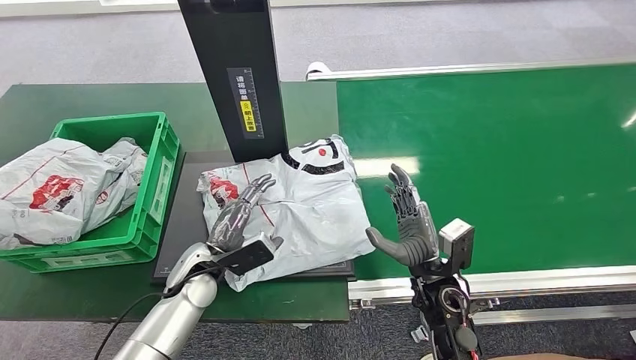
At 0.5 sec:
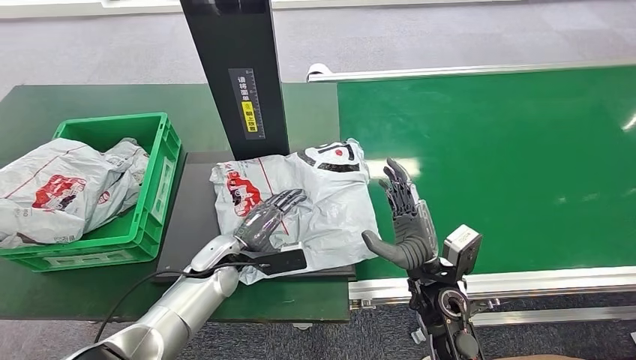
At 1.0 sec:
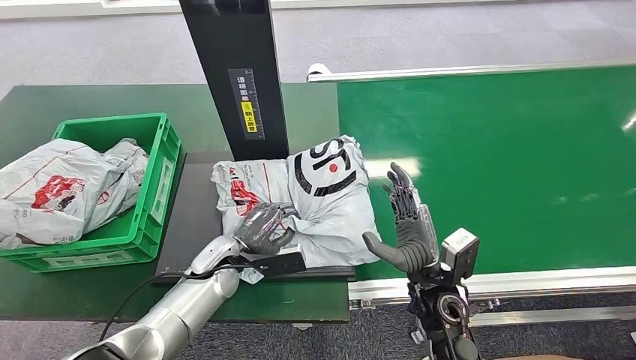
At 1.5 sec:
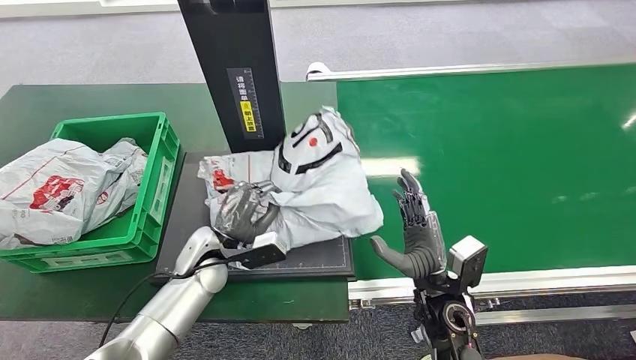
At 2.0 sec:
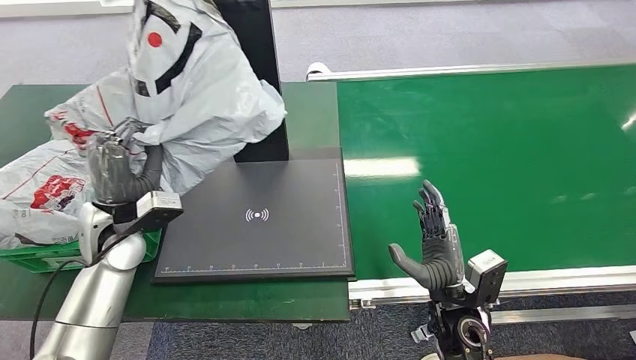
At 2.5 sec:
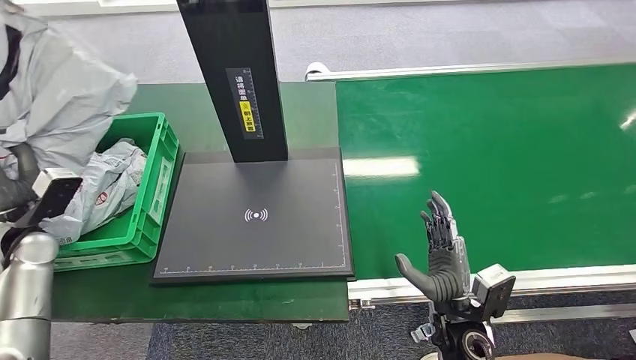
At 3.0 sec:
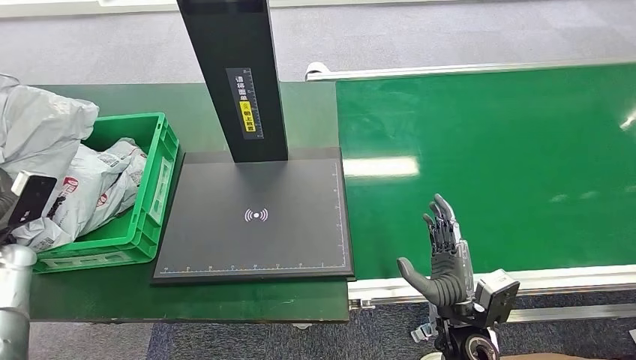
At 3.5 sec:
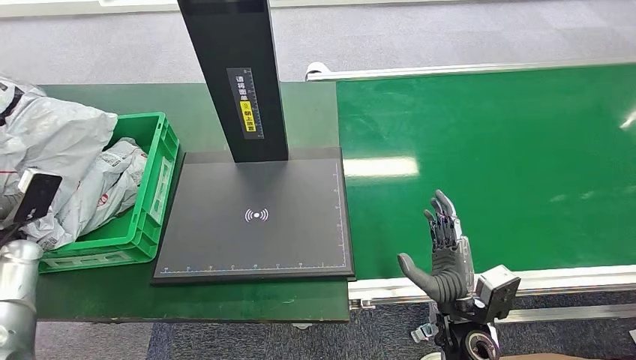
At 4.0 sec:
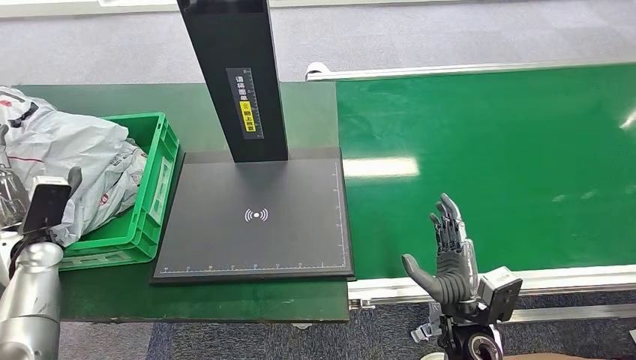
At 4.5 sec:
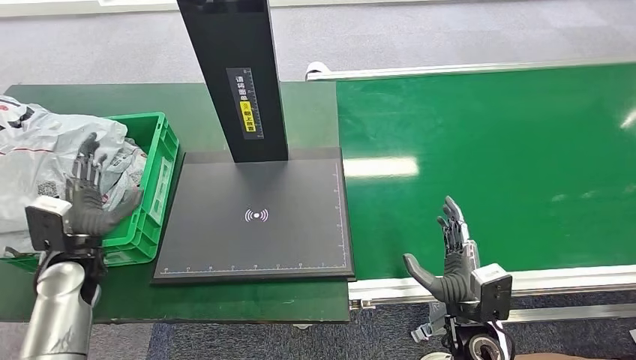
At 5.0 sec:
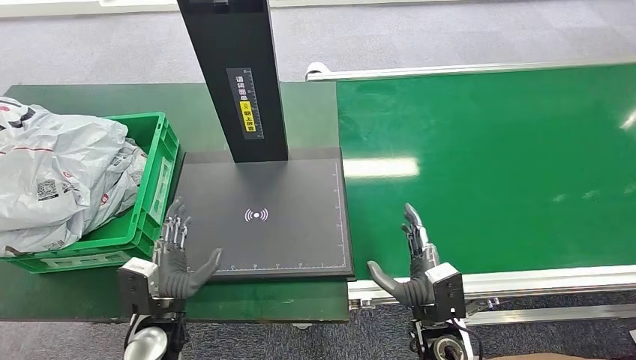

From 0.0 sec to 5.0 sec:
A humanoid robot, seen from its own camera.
Step, from 0.0 sec to 2.0 sec: Pick up the package from the inbound machine.
Step, from 2.5 sec to 5.0 sec: Place the package into the parcel locker.
From 2.5 sec to 5.0 sec: The left hand is displaced to the right, downward and backward by some 30 cm.

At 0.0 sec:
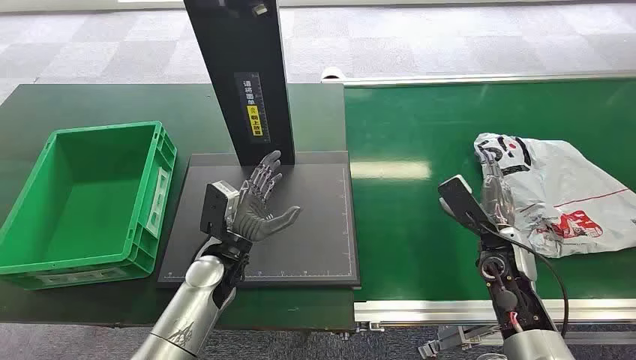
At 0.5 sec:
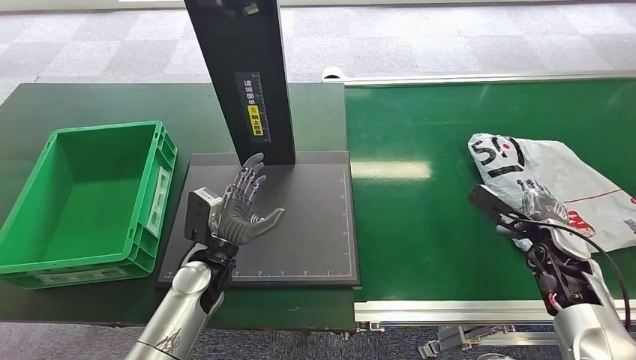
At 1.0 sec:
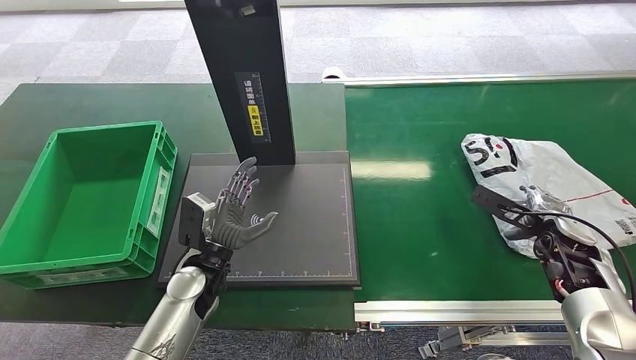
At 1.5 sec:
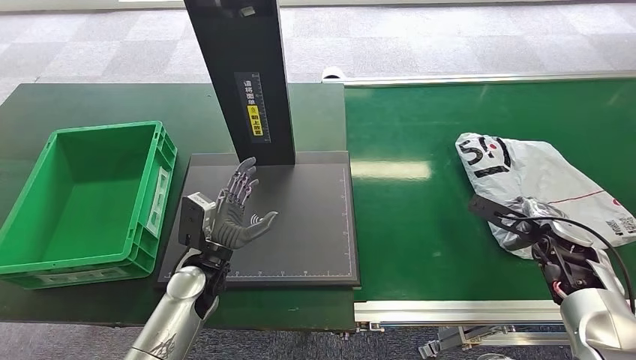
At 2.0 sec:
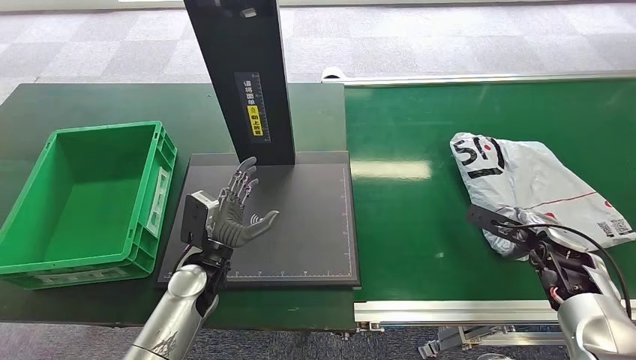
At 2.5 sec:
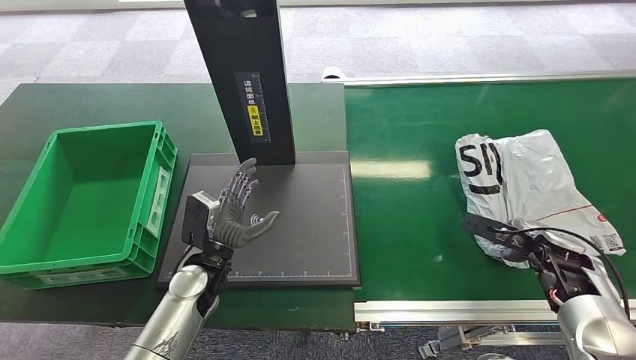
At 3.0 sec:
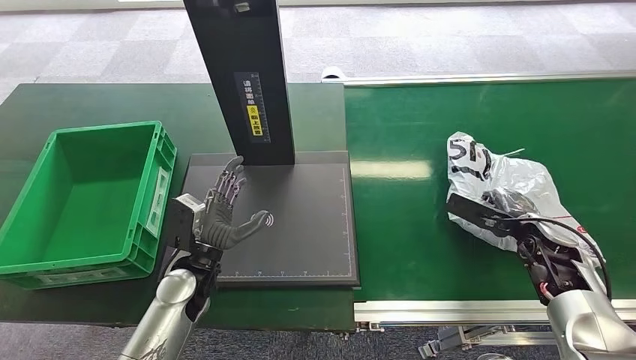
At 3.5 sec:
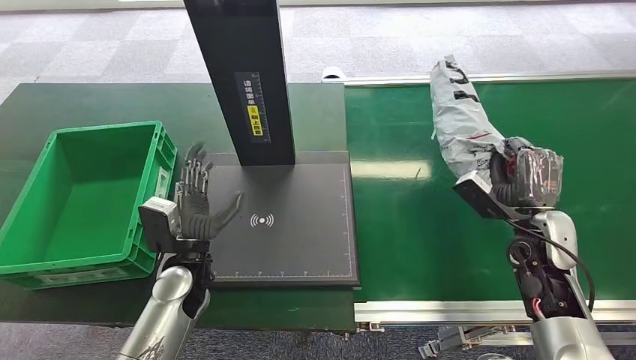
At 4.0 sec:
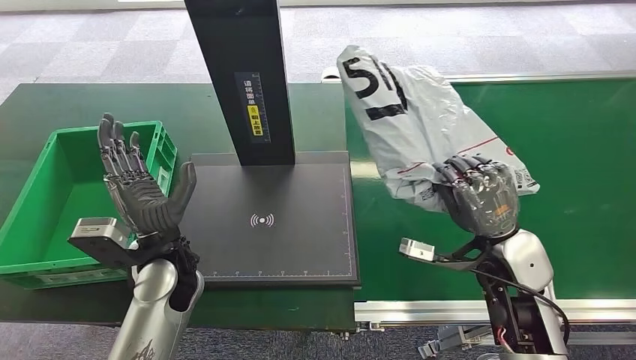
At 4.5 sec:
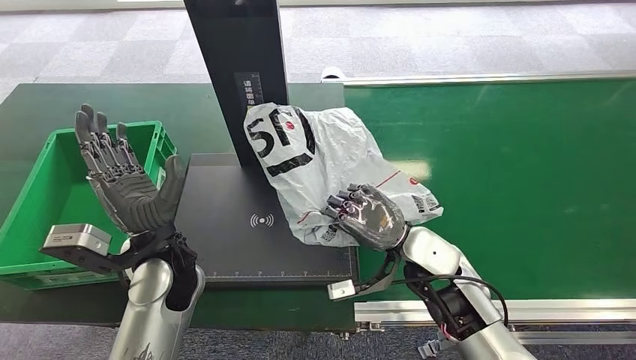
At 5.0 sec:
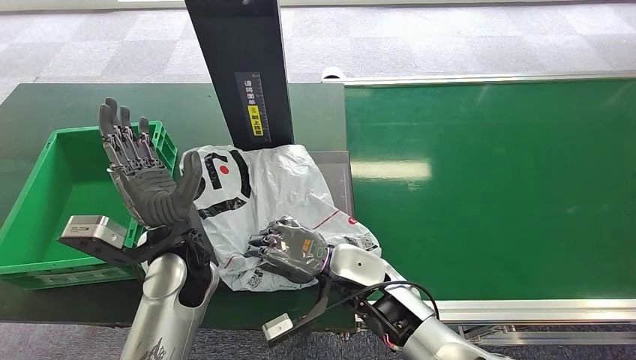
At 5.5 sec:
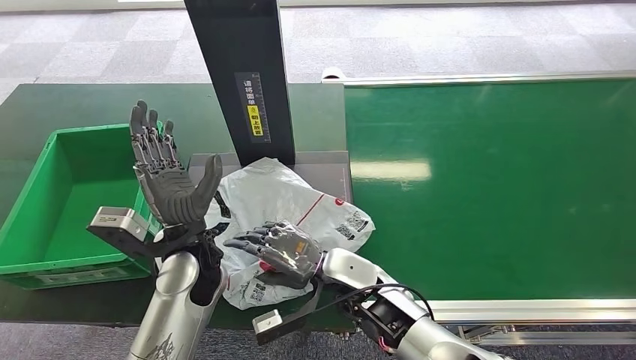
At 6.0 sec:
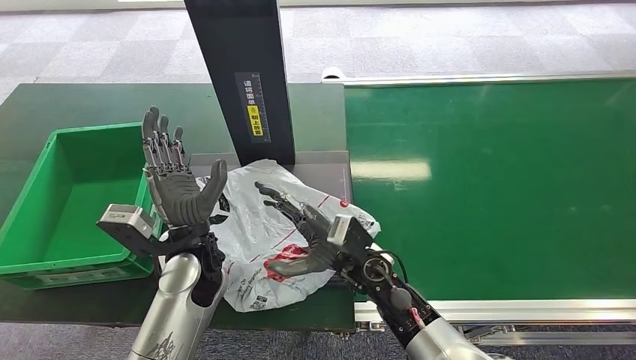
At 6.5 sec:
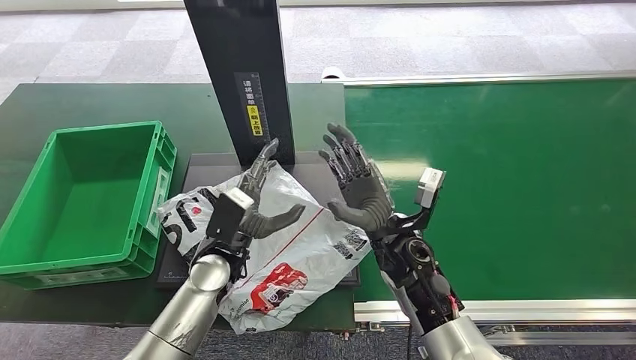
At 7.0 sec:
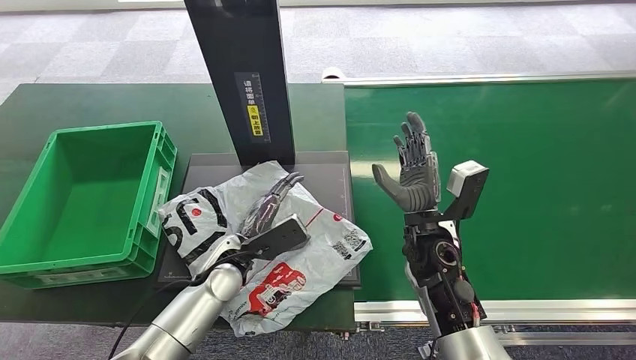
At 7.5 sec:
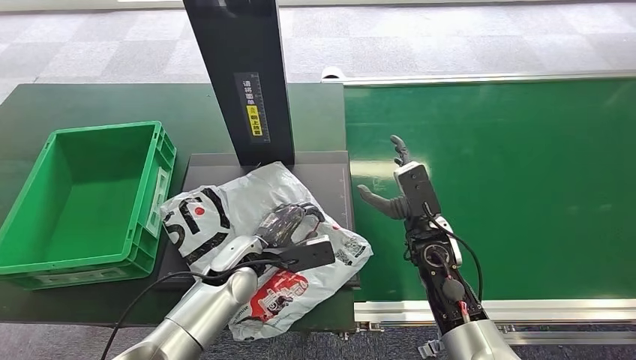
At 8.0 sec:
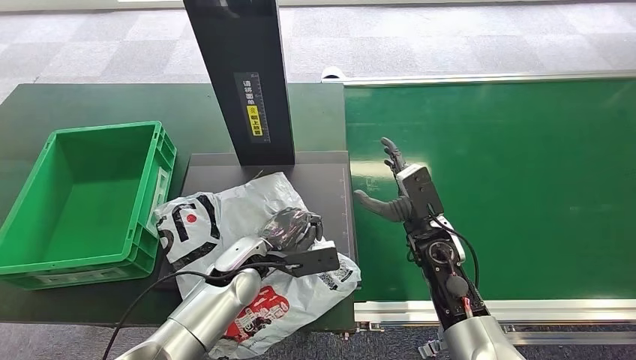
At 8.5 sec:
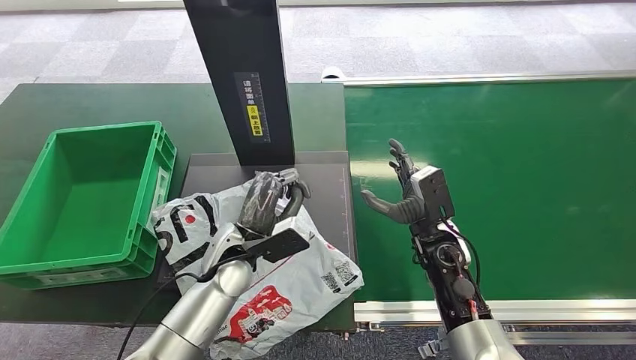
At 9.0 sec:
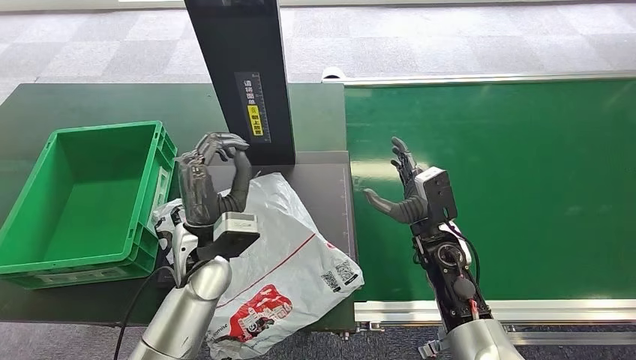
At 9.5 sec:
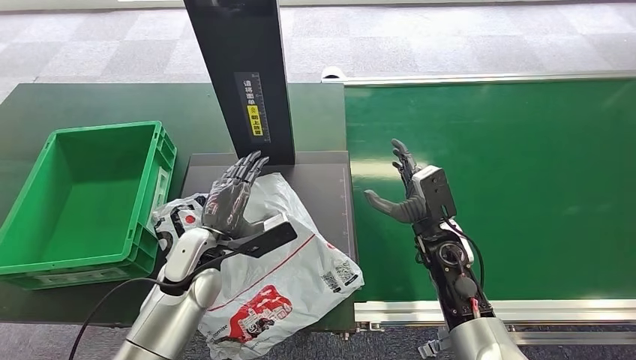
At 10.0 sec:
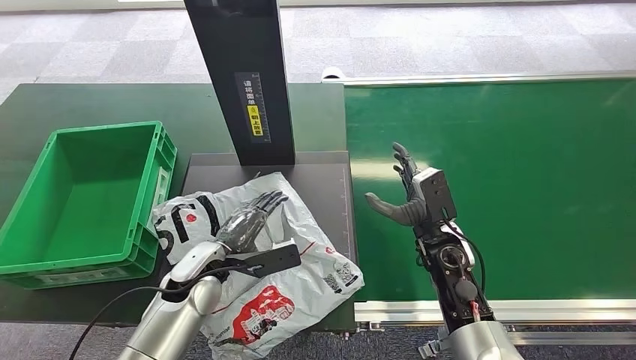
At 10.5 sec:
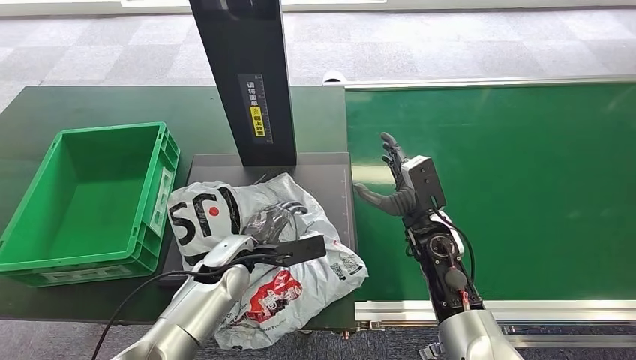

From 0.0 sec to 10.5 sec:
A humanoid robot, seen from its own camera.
Step, from 0.0 sec to 3.0 sec: Pick up the package from the conveyor belt.
Step, from 4.0 sec to 5.5 sec: Place the package onto the inbound machine.
From 6.5 sec to 8.5 sec: The right hand travels to the right by about 10 cm.

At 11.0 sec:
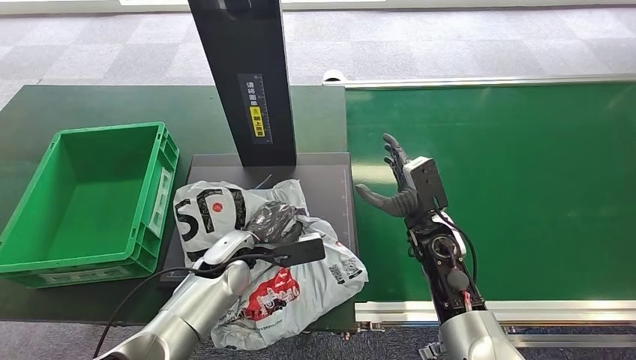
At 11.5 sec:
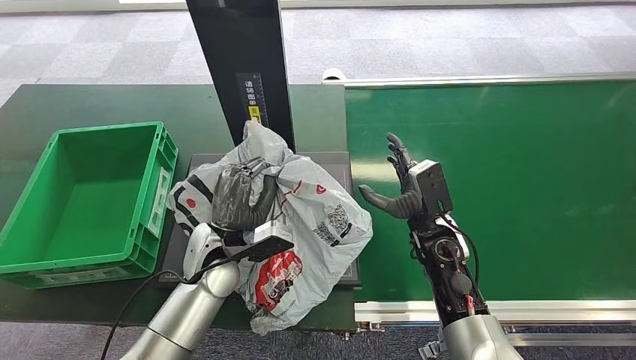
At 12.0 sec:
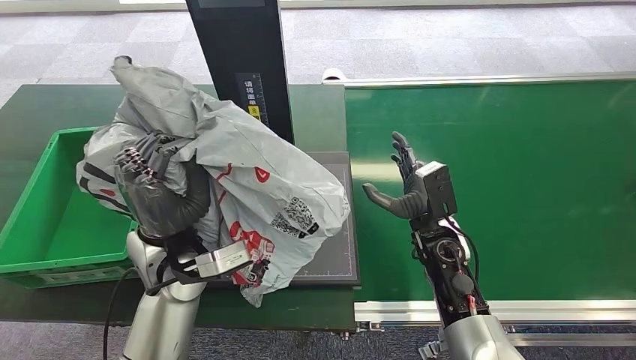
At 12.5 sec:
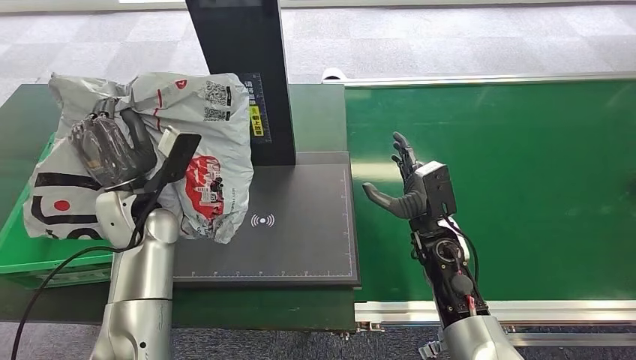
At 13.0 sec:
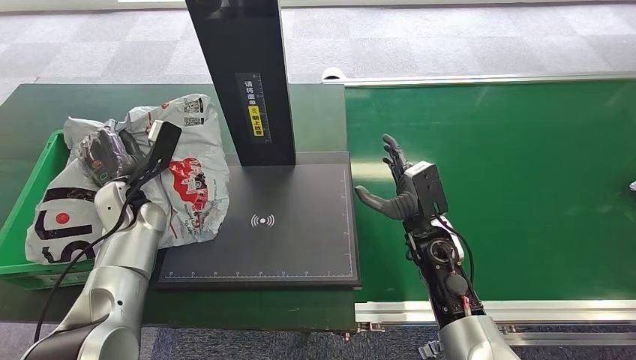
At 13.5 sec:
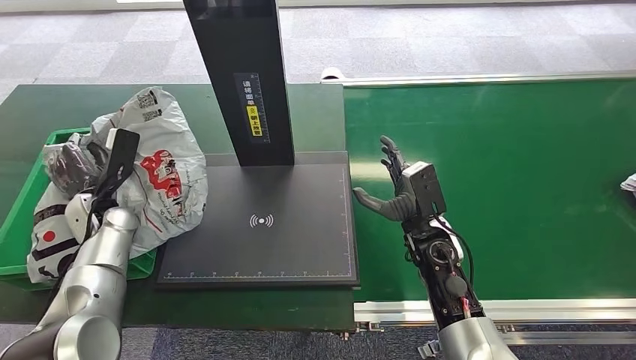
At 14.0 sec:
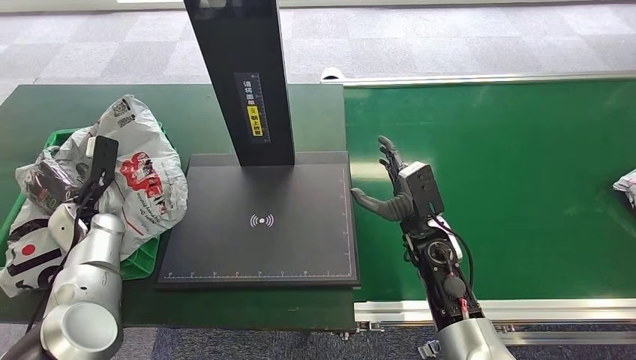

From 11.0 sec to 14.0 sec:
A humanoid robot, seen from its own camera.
Step, from 12.0 sec to 14.0 sec: Place the package into the parcel locker.
